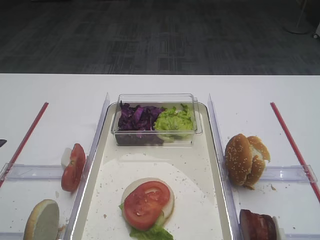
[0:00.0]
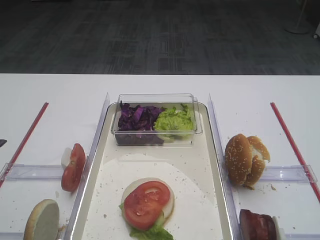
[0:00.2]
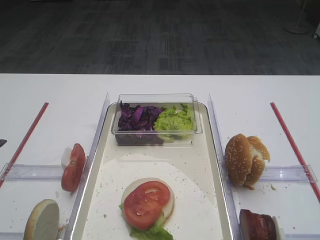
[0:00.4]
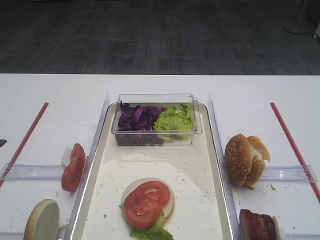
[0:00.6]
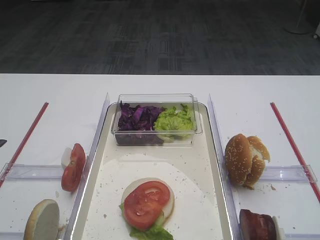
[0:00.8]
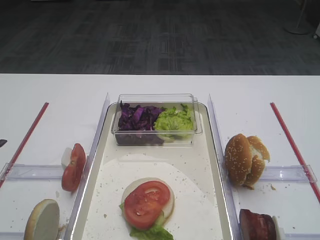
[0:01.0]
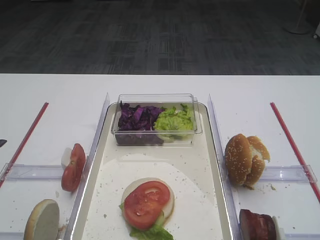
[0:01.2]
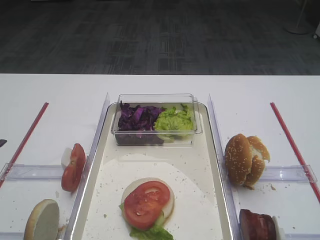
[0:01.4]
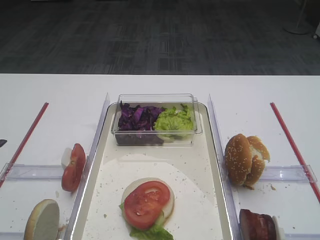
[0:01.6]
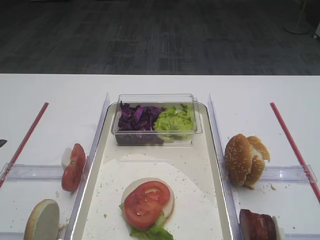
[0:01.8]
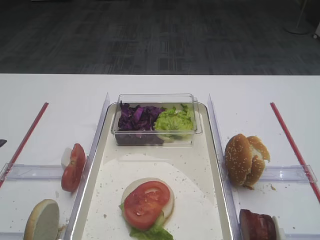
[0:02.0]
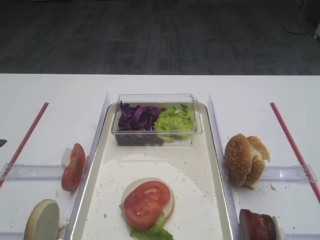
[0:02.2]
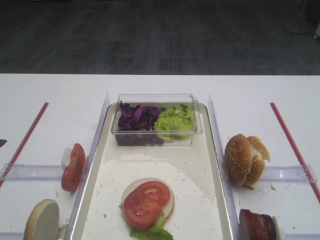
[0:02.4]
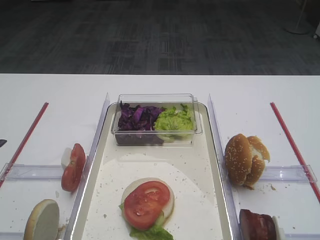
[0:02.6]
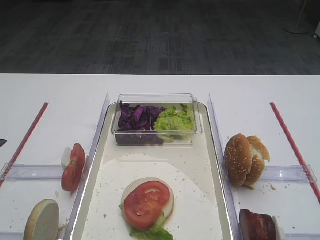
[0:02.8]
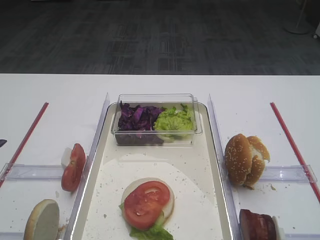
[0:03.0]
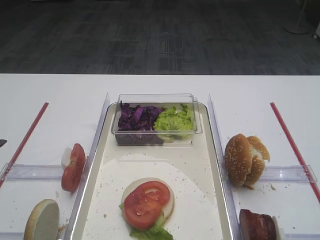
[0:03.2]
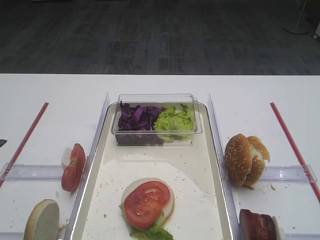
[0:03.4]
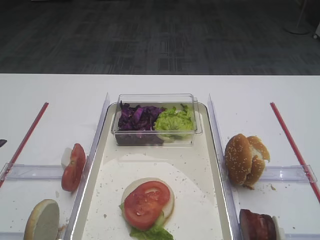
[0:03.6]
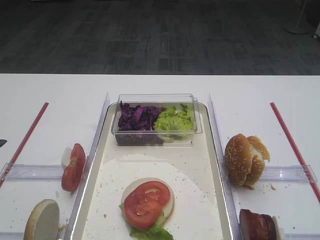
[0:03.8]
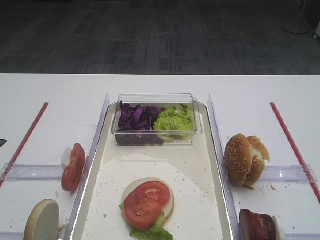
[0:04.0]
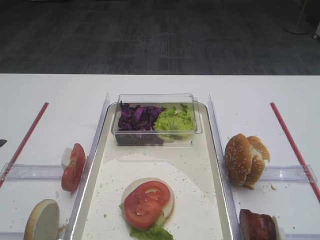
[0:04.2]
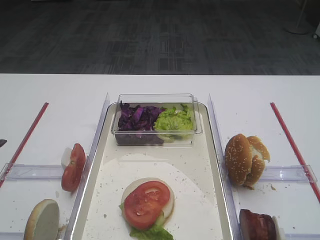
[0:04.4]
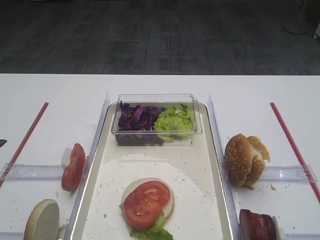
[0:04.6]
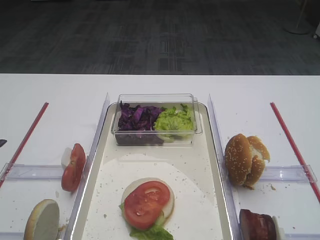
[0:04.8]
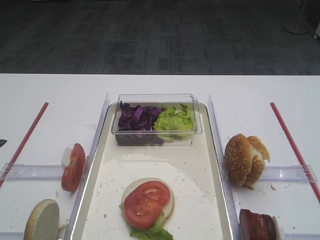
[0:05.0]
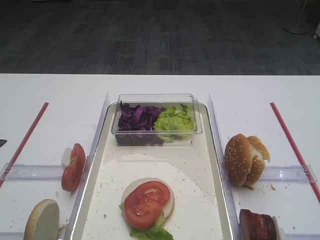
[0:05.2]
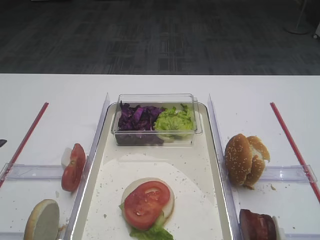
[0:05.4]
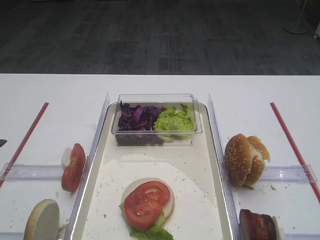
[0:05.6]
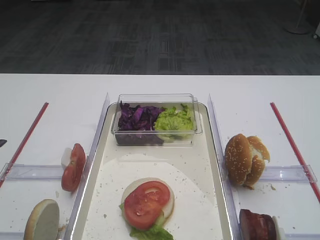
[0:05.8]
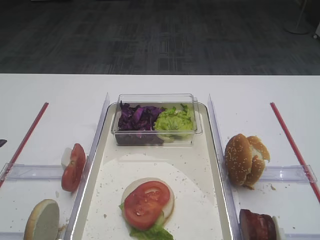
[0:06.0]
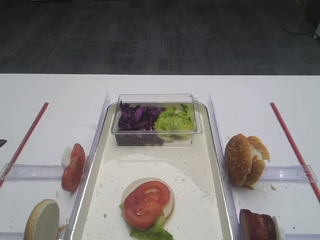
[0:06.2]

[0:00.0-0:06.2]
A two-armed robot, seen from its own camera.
0:01.6 to 0:06.2: Both grippers stay put.

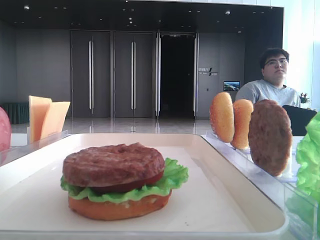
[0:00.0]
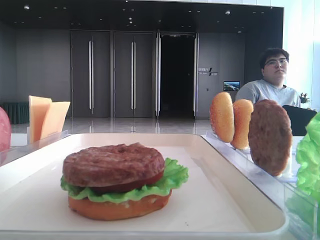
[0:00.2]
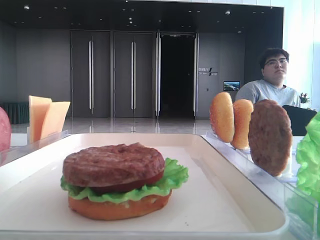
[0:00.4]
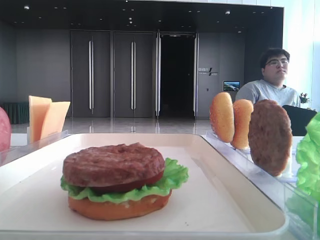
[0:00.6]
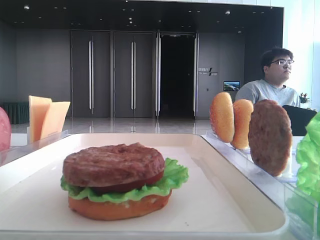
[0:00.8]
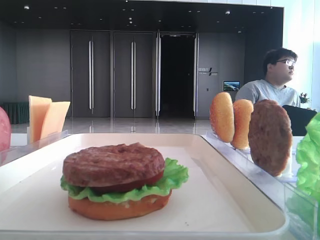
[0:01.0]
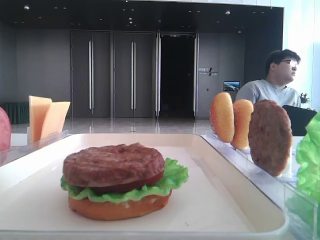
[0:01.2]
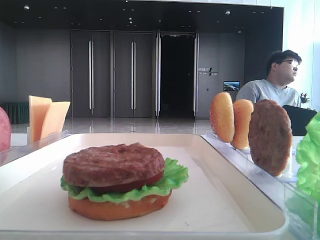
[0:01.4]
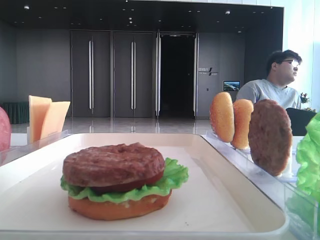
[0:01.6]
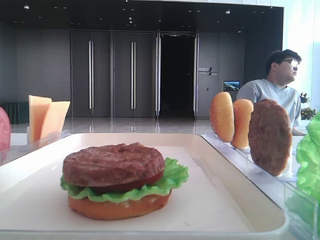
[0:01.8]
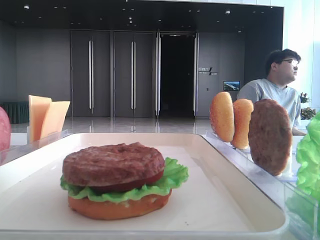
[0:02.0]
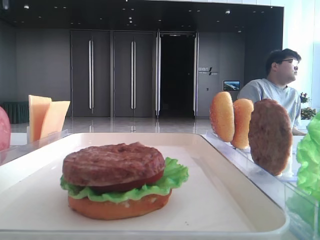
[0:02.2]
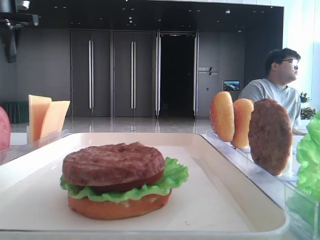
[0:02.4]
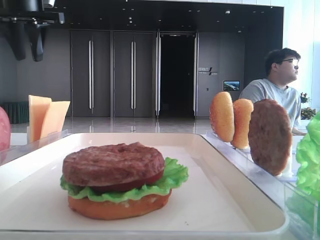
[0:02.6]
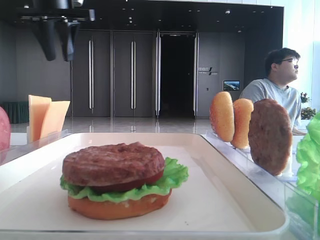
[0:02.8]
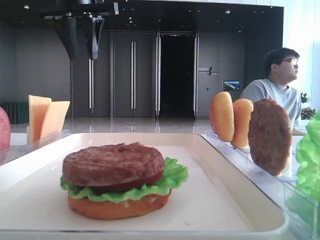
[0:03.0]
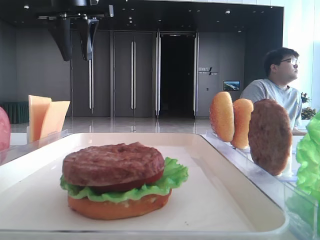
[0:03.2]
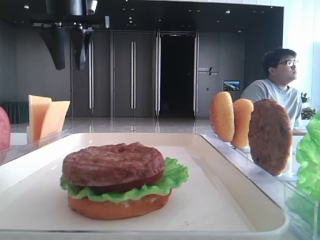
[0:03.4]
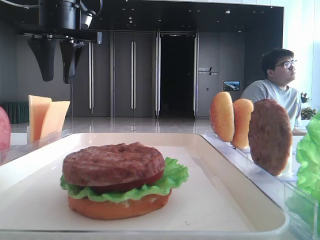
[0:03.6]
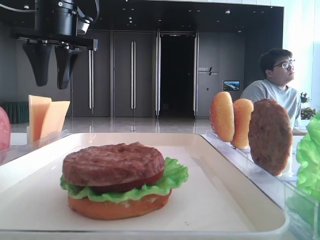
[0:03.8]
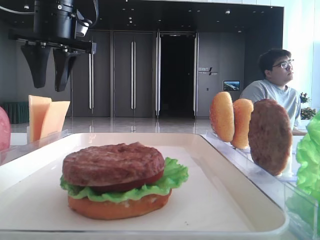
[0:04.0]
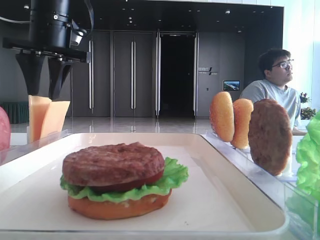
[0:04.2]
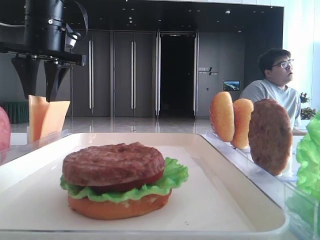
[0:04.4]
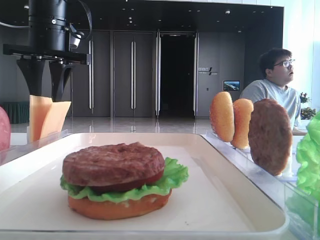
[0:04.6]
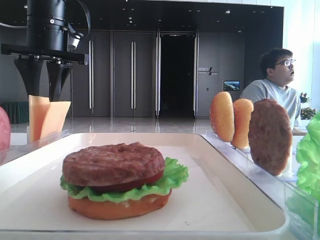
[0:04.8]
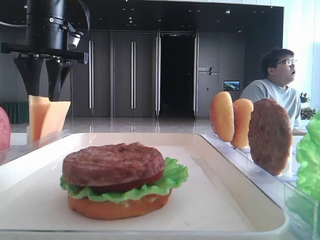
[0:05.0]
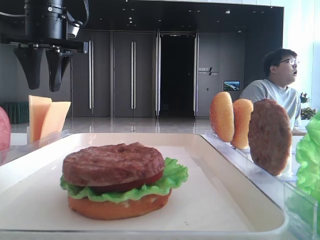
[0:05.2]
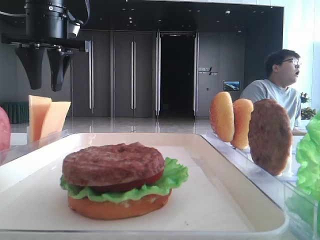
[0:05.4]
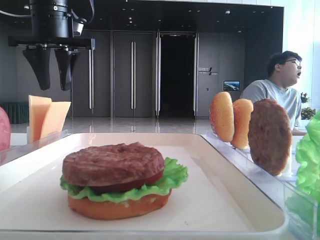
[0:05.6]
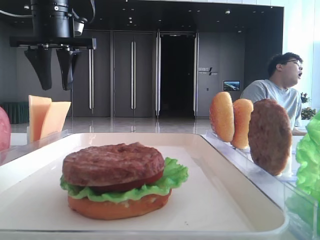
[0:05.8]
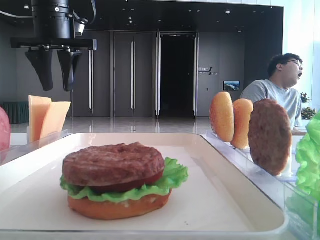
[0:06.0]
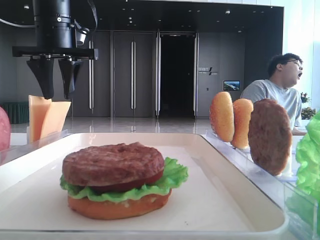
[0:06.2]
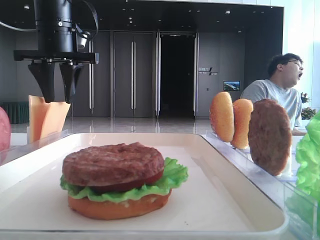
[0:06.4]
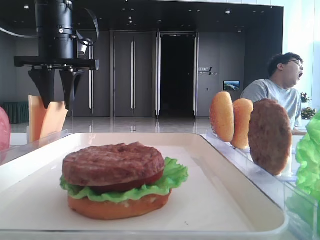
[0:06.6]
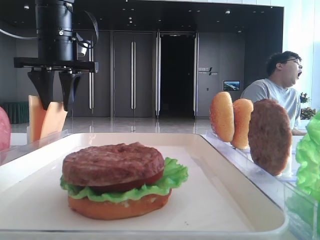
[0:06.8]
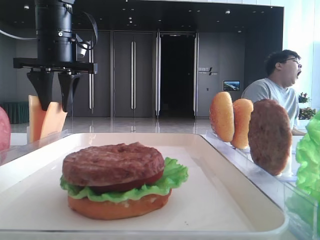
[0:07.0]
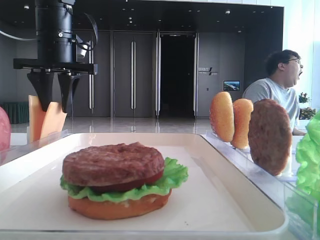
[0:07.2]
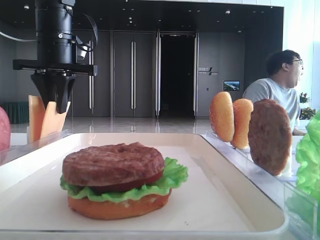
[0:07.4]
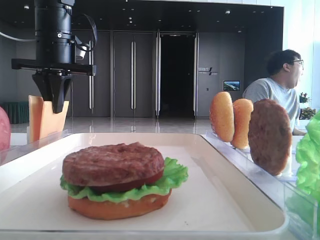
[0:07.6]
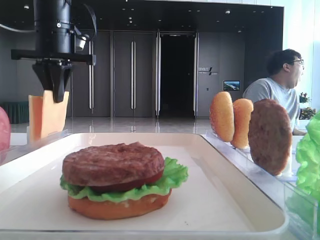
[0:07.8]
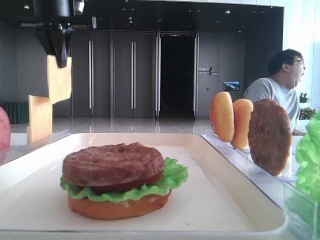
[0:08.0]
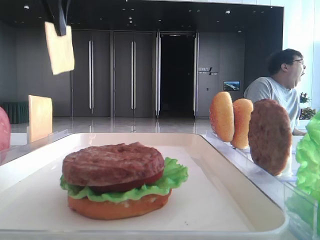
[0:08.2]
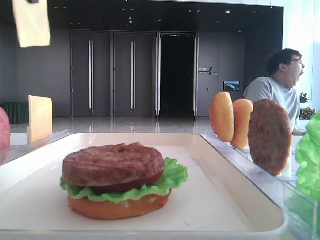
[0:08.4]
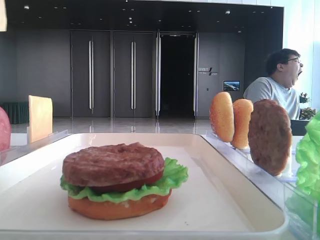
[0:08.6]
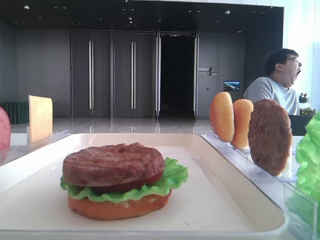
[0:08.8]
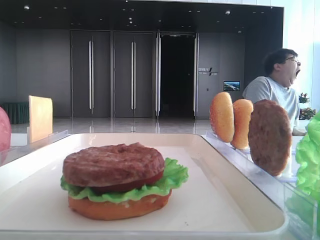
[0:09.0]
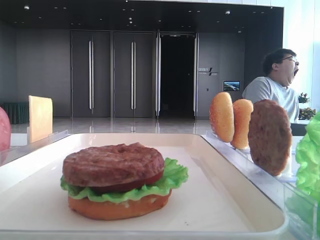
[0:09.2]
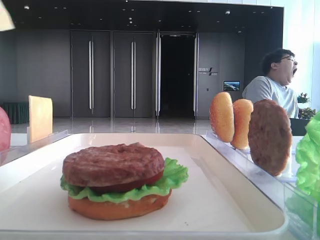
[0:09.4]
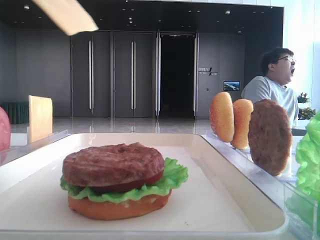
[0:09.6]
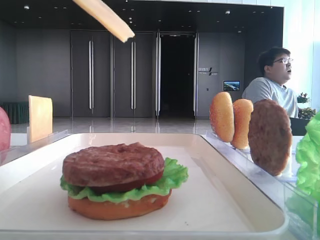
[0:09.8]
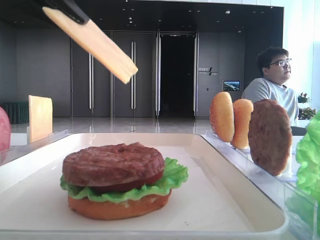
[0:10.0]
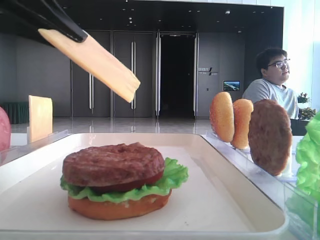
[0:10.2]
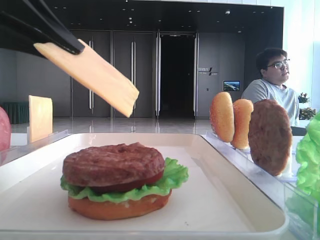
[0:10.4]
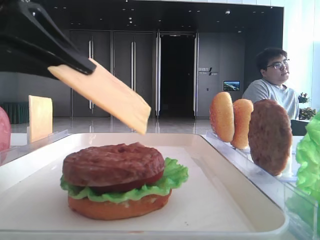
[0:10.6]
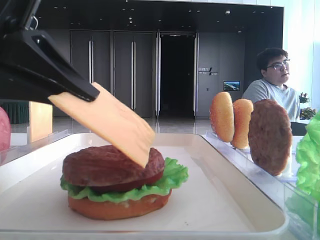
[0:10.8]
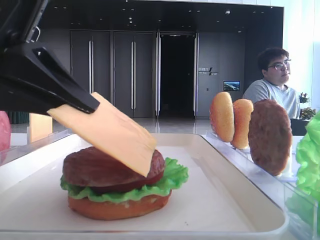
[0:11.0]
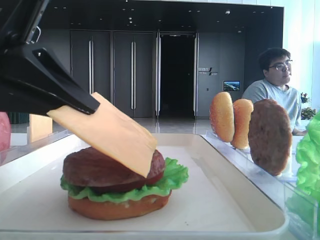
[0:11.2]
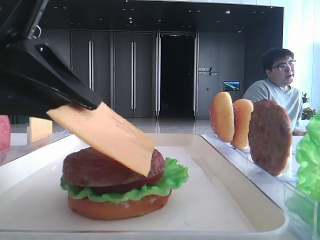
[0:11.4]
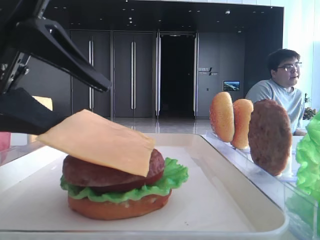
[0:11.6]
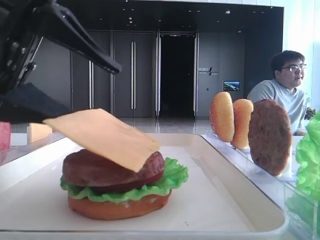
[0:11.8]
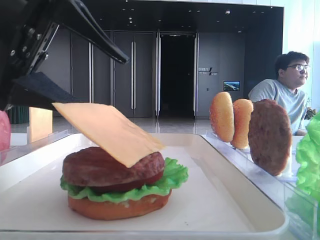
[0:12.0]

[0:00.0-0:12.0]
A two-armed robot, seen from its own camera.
Step, 0:00.0 to 0:07.6: Pick up the cheese slice with the left hand.
0:01.6 to 0:03.0: The left gripper shifts approximately 35 cm forward and to the right.
0:03.0 to 0:04.4: The left gripper is displaced downward by some 5 cm.
0:04.4 to 0:06.0: There are only small adjustments of the grippers.
0:06.0 to 0:07.6: The left gripper closes up.
0:07.6 to 0:09.0: The left gripper heads backward and upward, covering approximately 30 cm.
0:09.0 to 0:10.4: The left gripper shifts some 20 cm downward and to the right.
0:10.4 to 0:12.0: The left gripper opens its fingers.

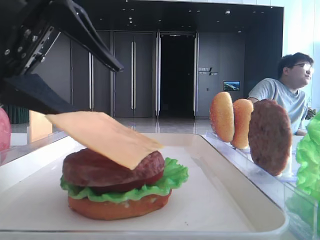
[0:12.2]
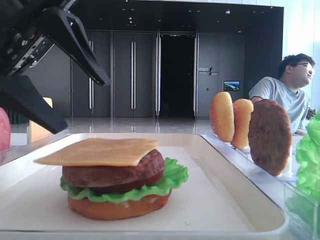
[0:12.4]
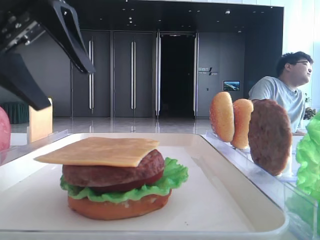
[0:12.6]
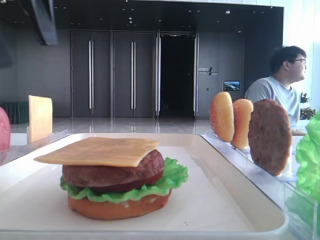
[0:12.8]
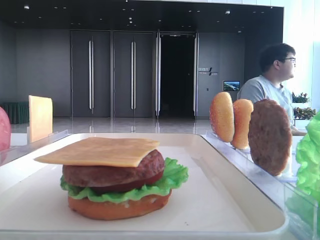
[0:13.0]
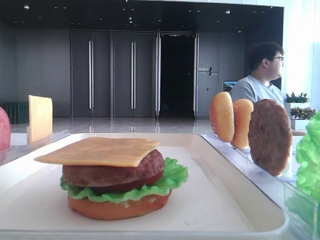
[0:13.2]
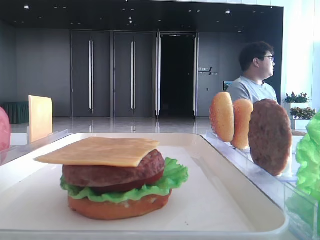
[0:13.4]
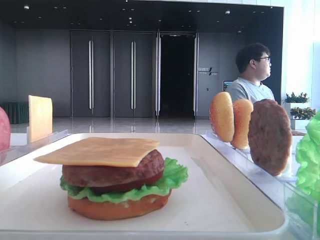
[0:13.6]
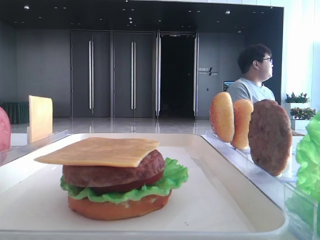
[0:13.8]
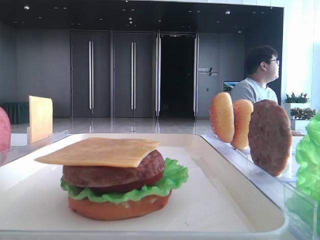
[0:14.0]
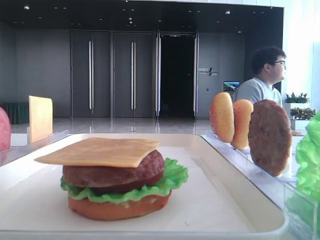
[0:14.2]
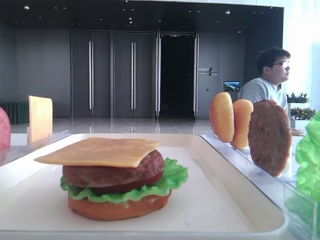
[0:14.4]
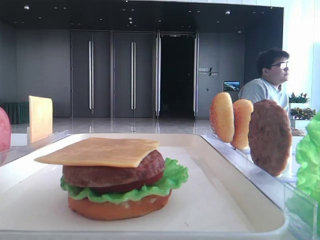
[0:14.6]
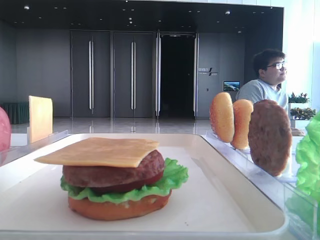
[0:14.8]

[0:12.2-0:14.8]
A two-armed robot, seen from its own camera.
0:12.2 to 0:13.4: The left gripper travels upward and to the left by approximately 20 cm.

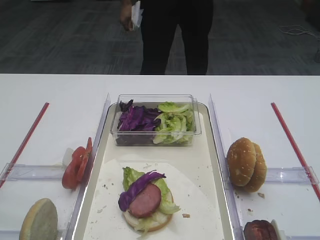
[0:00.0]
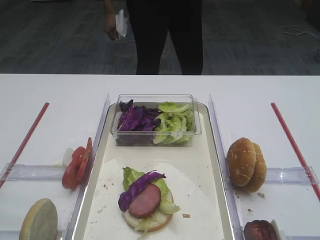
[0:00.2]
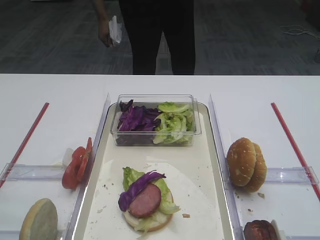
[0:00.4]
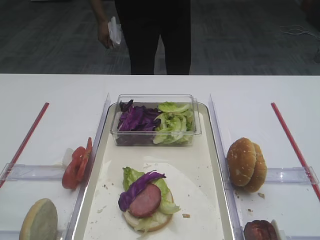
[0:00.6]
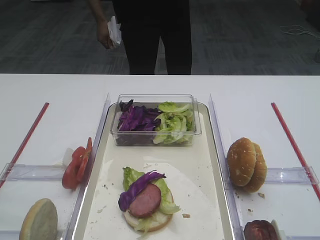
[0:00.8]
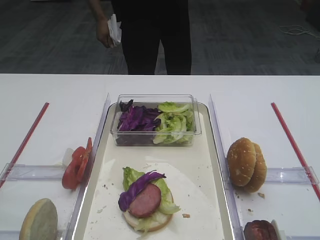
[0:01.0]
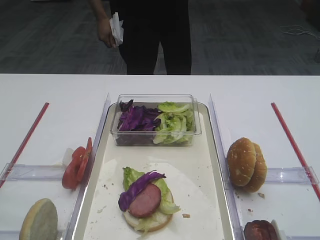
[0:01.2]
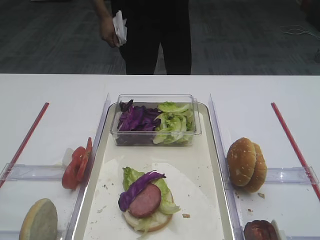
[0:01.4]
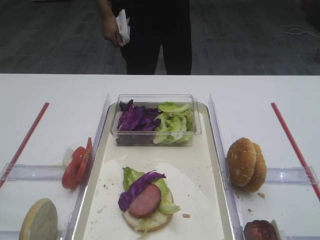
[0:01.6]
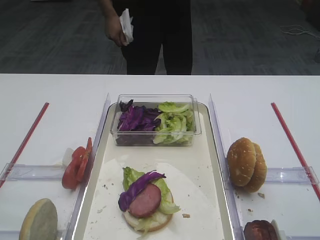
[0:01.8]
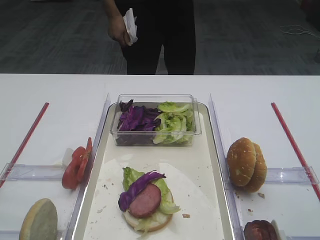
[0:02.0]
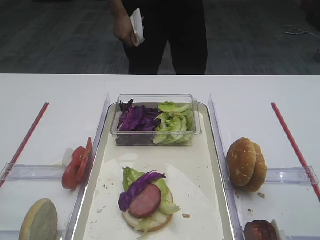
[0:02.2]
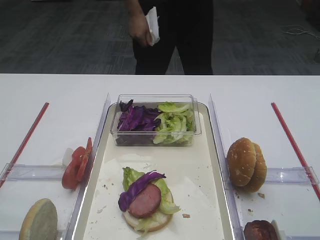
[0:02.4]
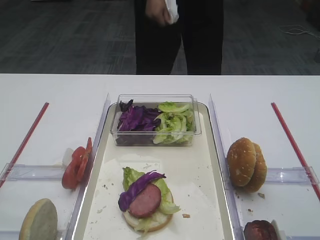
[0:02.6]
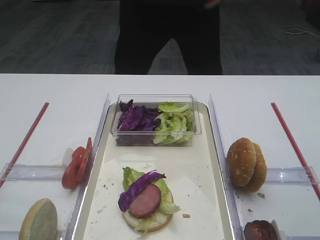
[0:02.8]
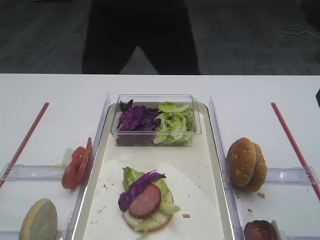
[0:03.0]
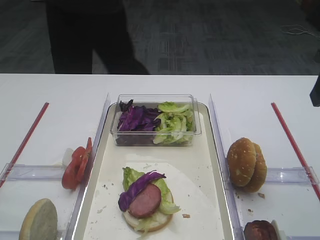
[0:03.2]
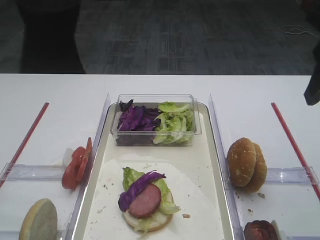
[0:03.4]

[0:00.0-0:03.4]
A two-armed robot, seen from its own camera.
0:01.6 to 0:03.4: The right gripper shifts approximately 15 cm forward.
